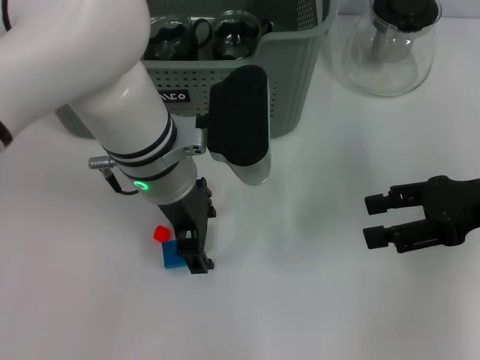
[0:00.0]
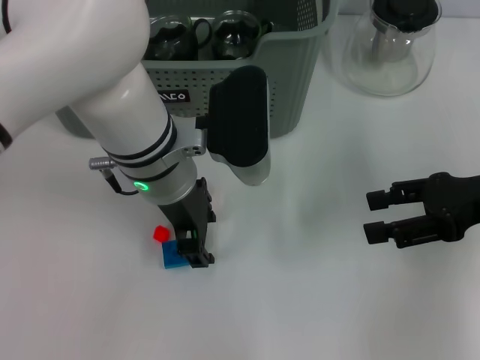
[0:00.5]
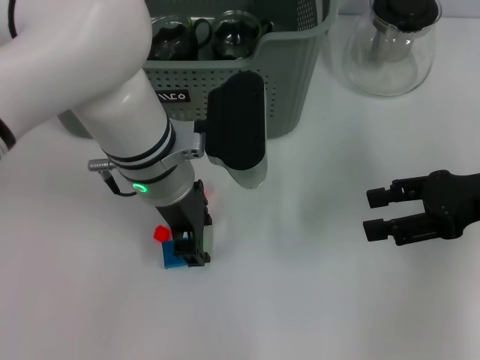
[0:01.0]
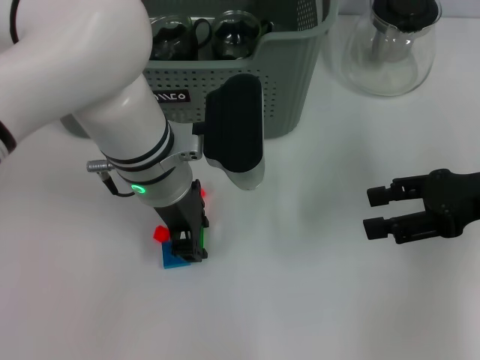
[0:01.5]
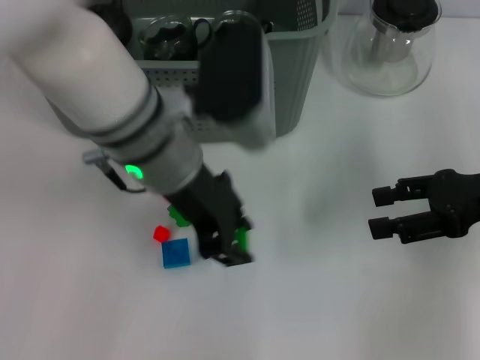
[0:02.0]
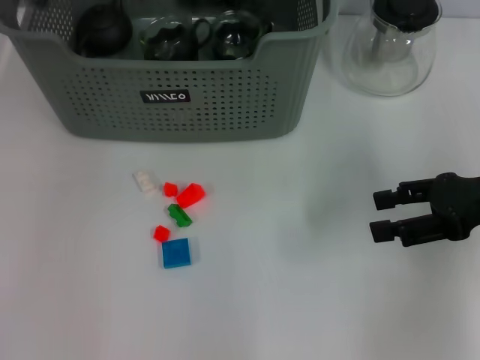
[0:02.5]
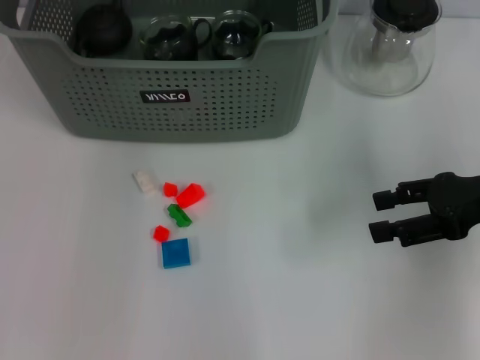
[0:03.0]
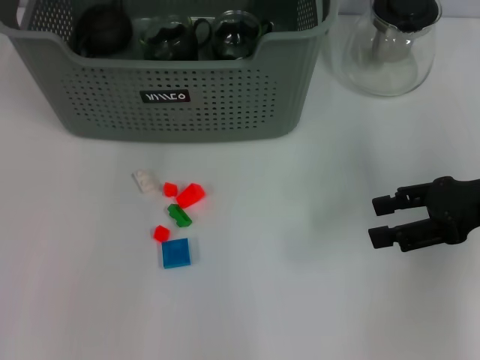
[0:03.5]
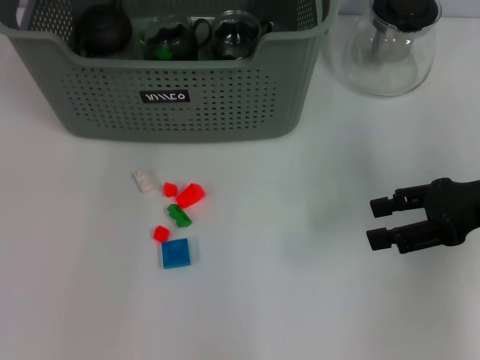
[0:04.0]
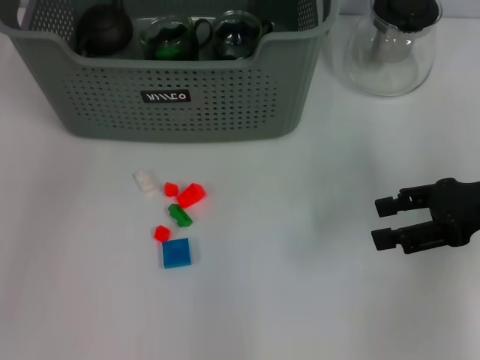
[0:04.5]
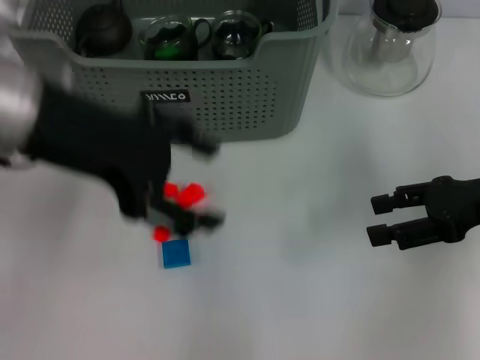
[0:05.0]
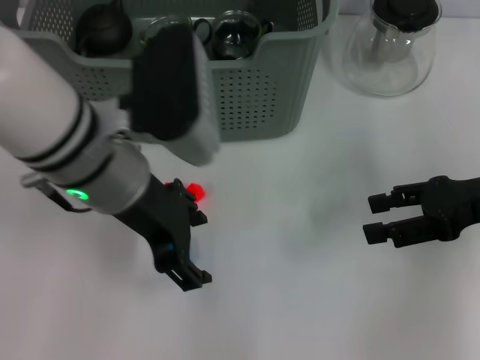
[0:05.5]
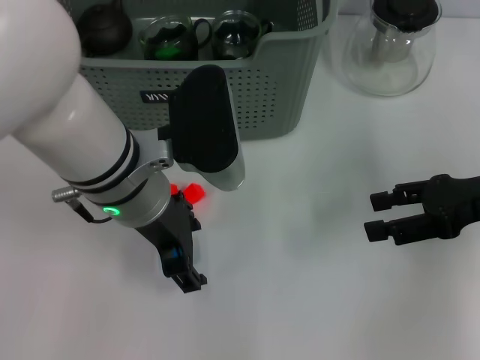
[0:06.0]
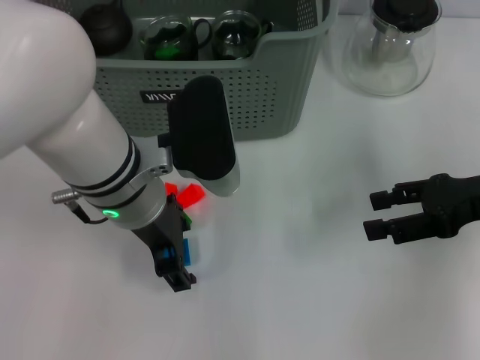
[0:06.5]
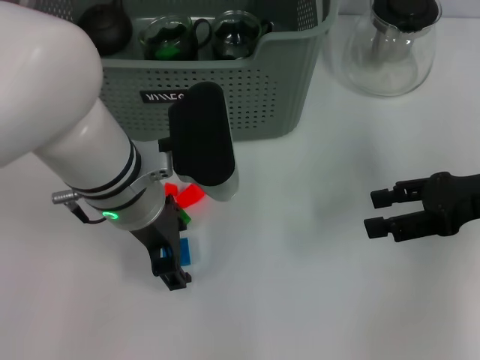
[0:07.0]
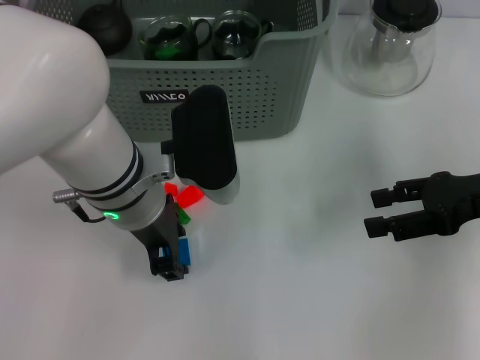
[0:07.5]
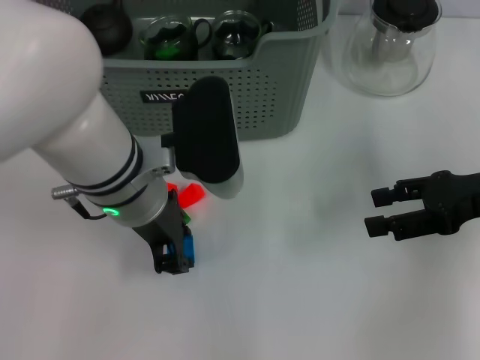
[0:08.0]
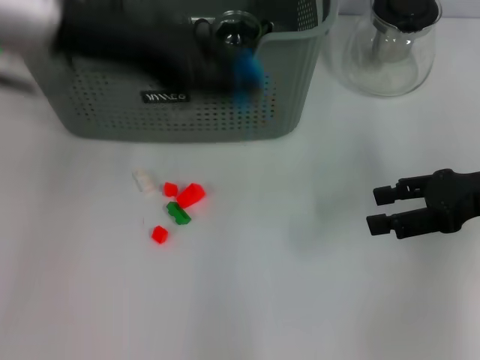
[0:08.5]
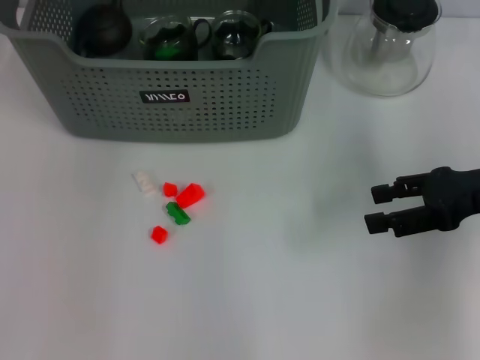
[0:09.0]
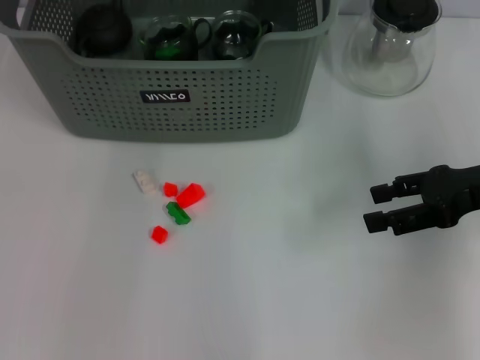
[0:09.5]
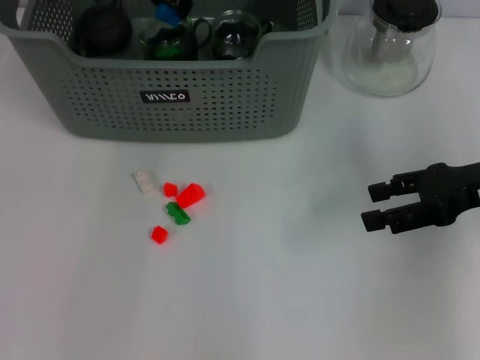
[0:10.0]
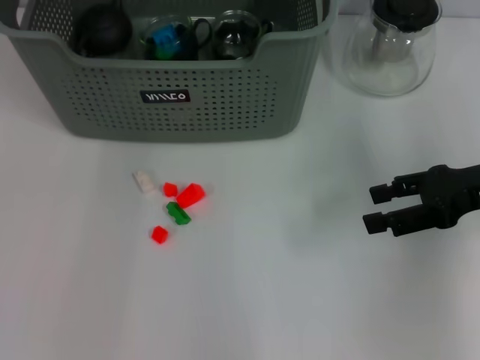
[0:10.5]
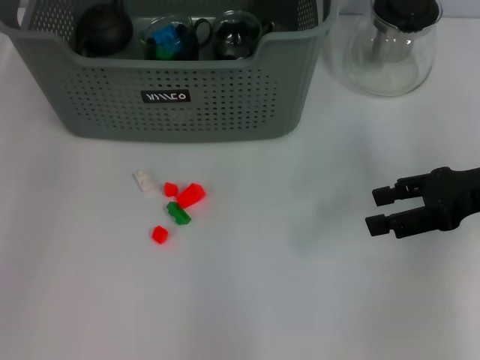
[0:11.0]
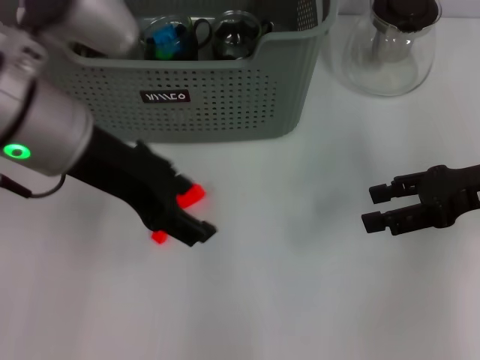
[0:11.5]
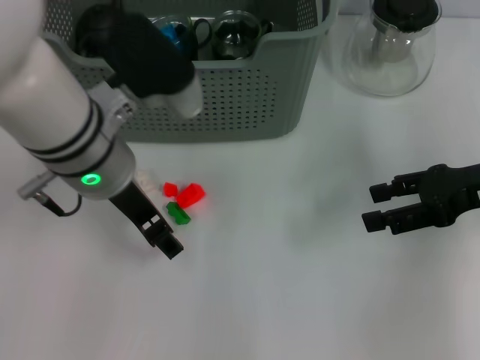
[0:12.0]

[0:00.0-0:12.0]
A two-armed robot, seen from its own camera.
Task of the whole recording: pick up the teacup on the table and place it into the storage bin, pick up the block on the table and place it into the storage bin.
Step, 0:02.0 to 0:04.0: Place the green block in the storage box with left gripper.
Step, 0:04.5 to 0:07.5: Grasp the dark blue block with left gripper.
Step, 0:08.0 to 0:10.0: Place the dark blue block in the storage box with left gripper.
0:00.0 to 0:02.0: The left gripper closes up.
0:02.0 to 0:04.0: The left gripper travels forward and upward by some 20 cm.
0:04.0 to 0:06.0: The left gripper is displaced backward and downward by roughly 20 cm.
0:06.0 to 0:08.0: The left gripper closes up.
0:08.0 to 0:10.0: The left gripper moves forward and upward, approximately 20 cm.
0:10.0 to 0:12.0: The left gripper goes roughly 15 cm backward, and opens.

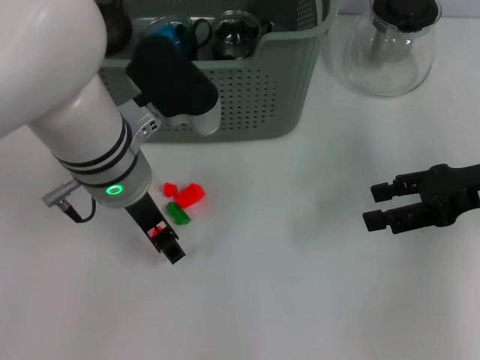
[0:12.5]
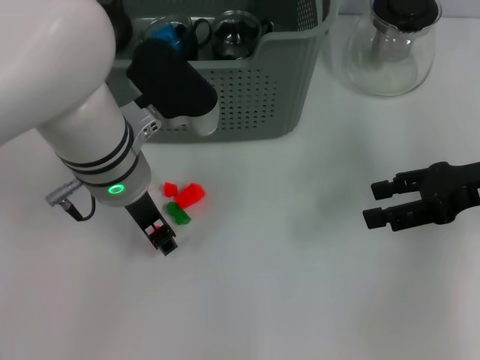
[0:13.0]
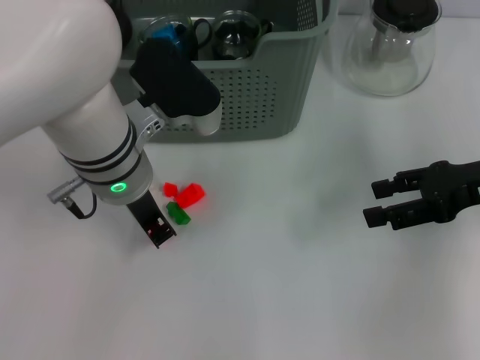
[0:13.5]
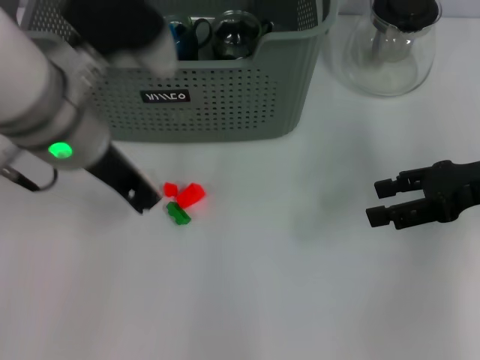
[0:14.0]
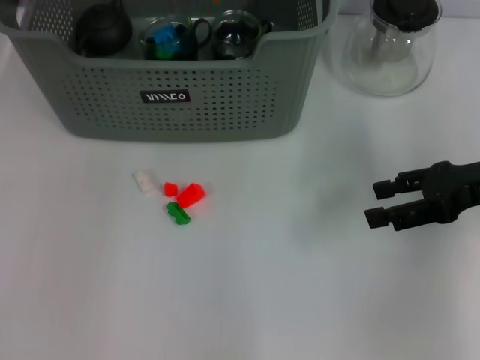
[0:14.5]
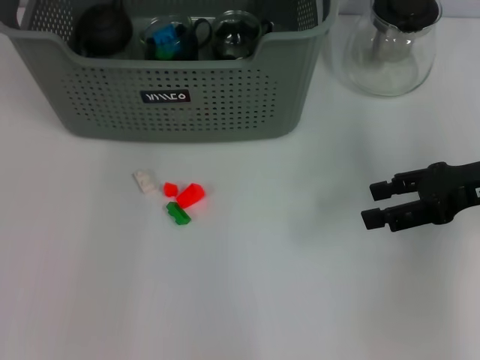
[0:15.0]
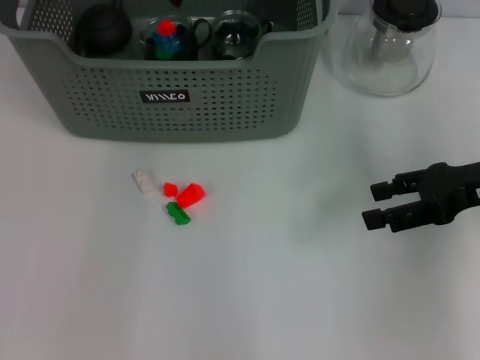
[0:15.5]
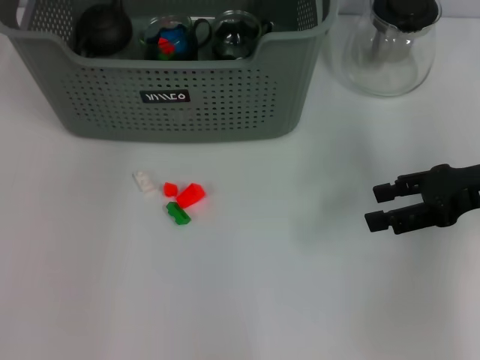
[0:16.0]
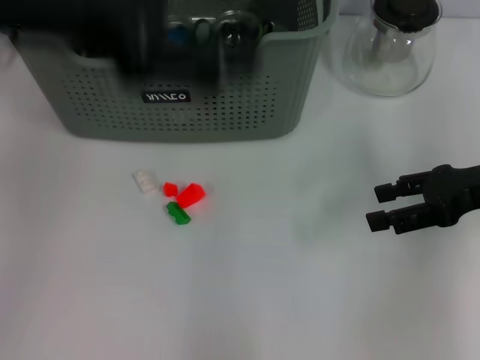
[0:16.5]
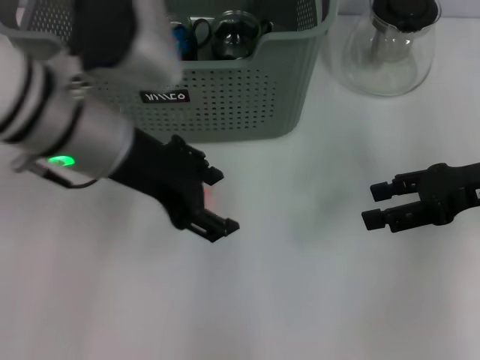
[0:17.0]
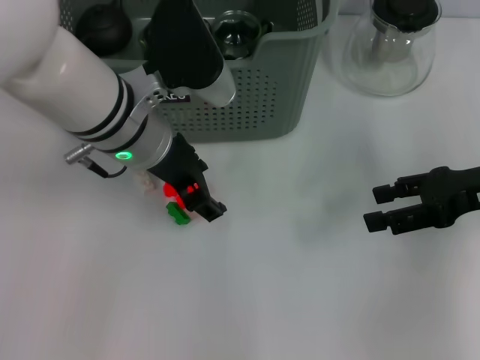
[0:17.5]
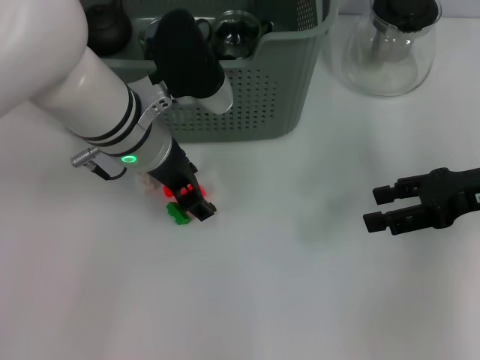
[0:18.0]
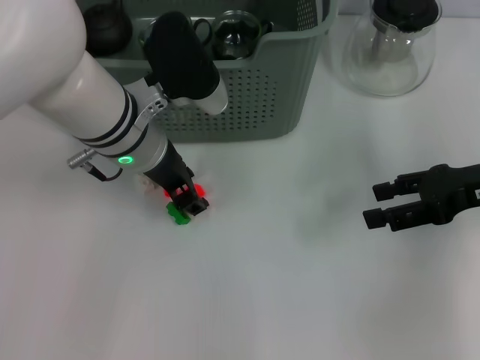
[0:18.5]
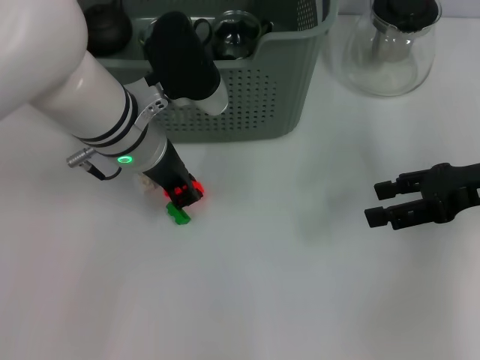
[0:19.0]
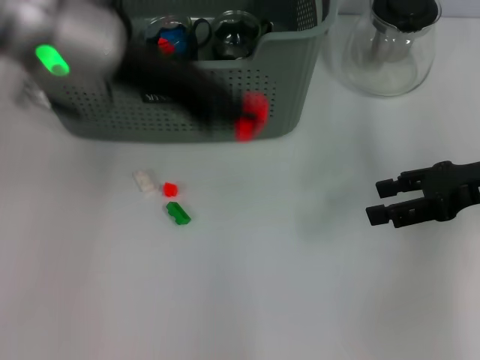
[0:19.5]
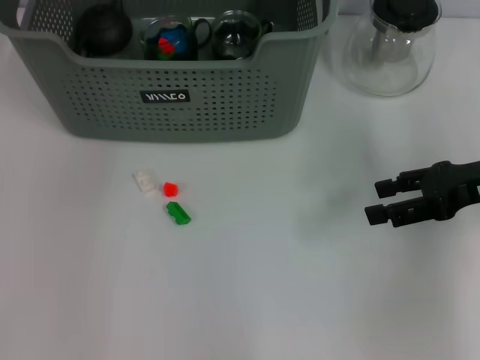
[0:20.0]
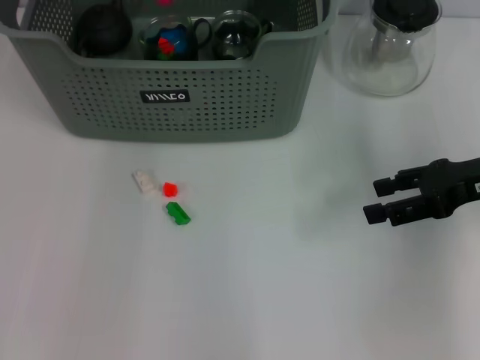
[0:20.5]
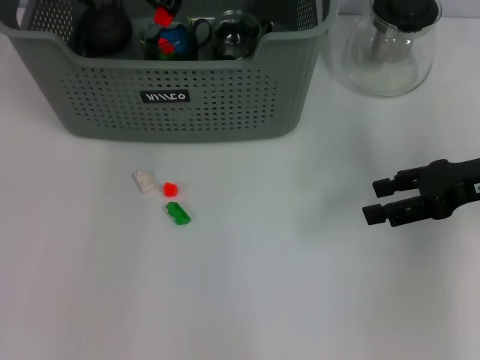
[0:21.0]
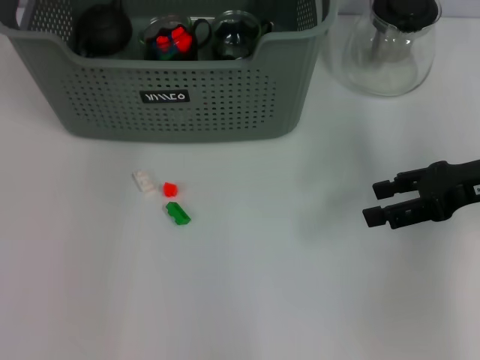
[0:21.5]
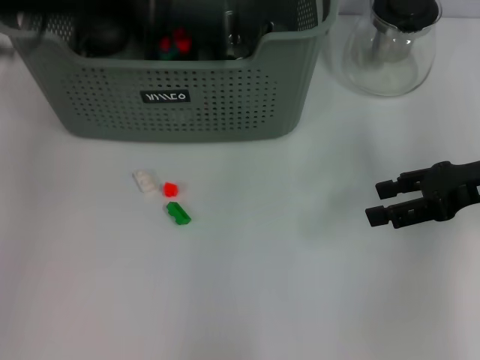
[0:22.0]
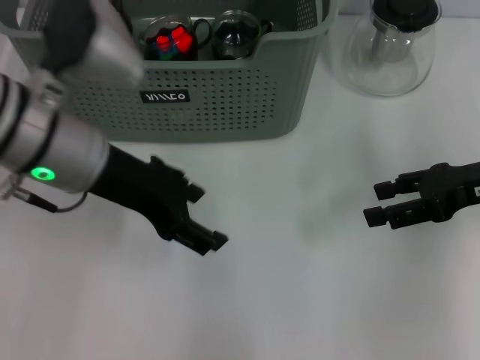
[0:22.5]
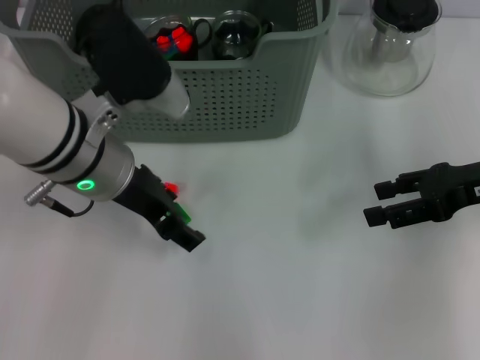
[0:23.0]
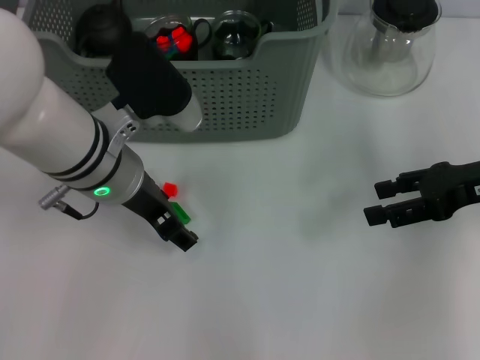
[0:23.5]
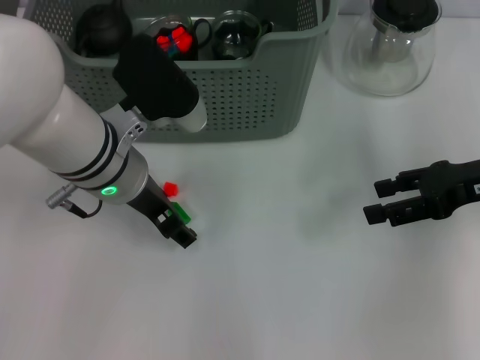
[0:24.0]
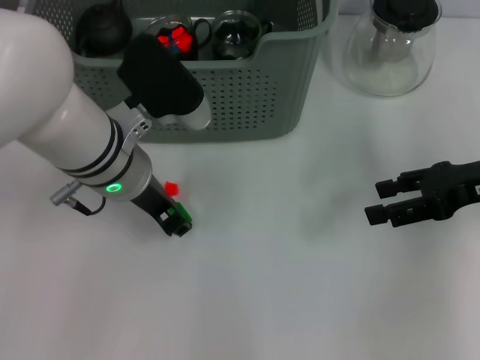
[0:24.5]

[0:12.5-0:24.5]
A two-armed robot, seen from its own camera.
Task of the whole recording: pick up the teacup on the table and place it into the storage bin, pick up the block on the table and place it into the storage bin.
Step, 0:14.0 to 0:15.5: Place the orange block in the storage box with left gripper.
Step, 0:16.0 to 0:18.5: Grasp the orange block with left gripper.
Step, 0:19.5 to 0:21.5: Place the orange block in the storage box with left gripper.
Step, 0:22.0 to 0:24.5: Grasp the green block with left gripper.
0:12.5 to 0:14.5: The left gripper goes about 20 cm upward, and closes.
0:14.5 to 0:16.5: The left gripper travels forward and back again, roughly 10 cm each way, and opens up.
0:16.5 to 0:18.5: The left gripper moves downward, to the right and forward, about 20 cm.
0:18.5 to 0:20.5: The left gripper moves forward and upward, roughly 15 cm, and closes up.
0:20.5 to 0:22.5: The left gripper is displaced backward by approximately 20 cm, and opens up.
0:22.5 to 0:24.5: The left gripper moves downward, about 5 cm.

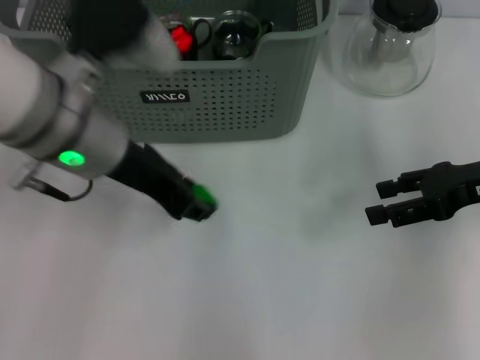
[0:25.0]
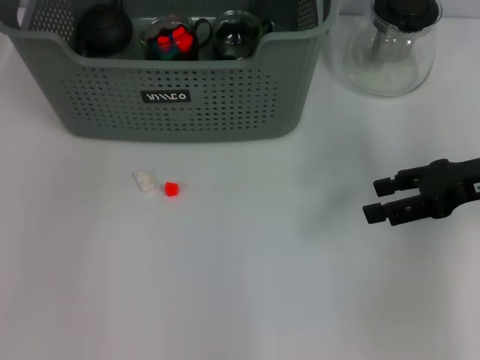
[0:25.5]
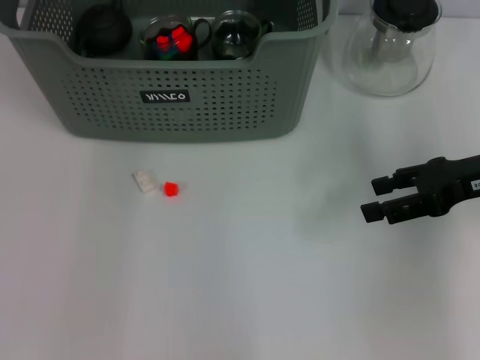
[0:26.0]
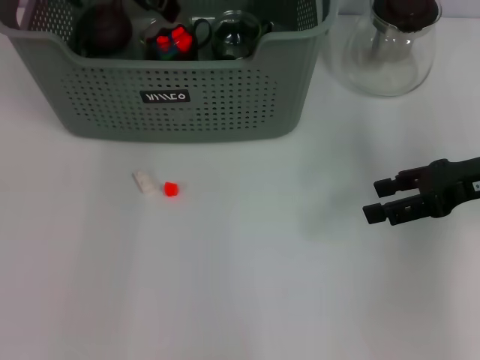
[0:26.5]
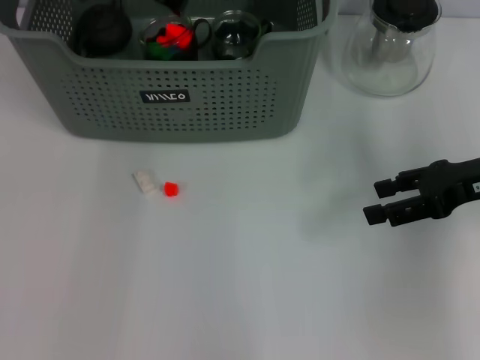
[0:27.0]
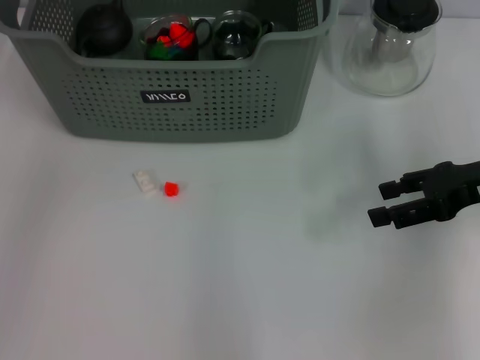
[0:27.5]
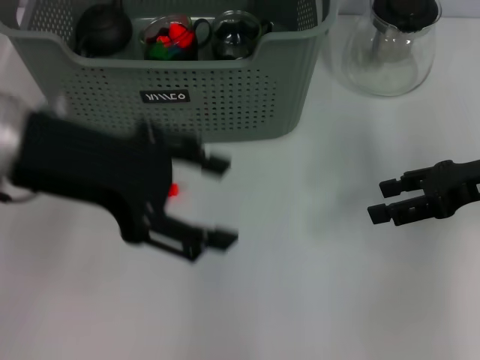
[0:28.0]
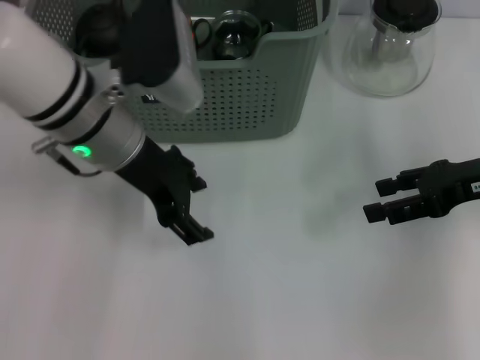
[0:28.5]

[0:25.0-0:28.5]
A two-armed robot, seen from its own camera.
Task of the whole recording: pick up the teacup on the table and place it into the storage bin, pick up the block on the table and place it into the storage bin.
Step, 0:25.0 to 0:27.0: Place the green block in the storage box with left gripper.
0:25.0 to 0:27.0: The left gripper is displaced forward by roughly 15 cm.
0:27.0 to 0:28.5: The left gripper moves backward and downward, some 15 cm, and opens up.
